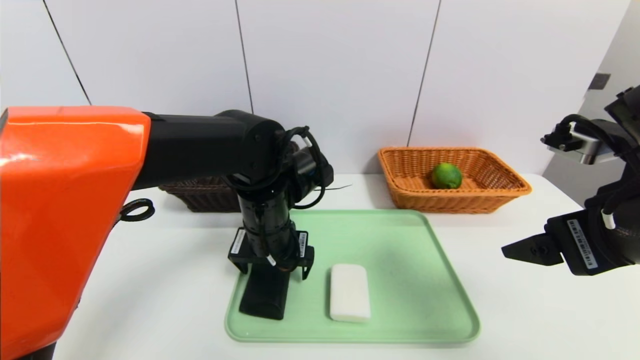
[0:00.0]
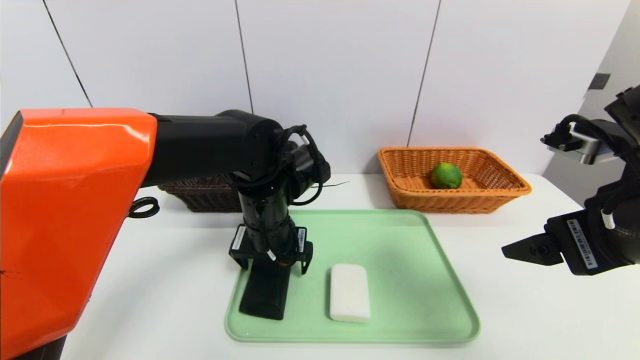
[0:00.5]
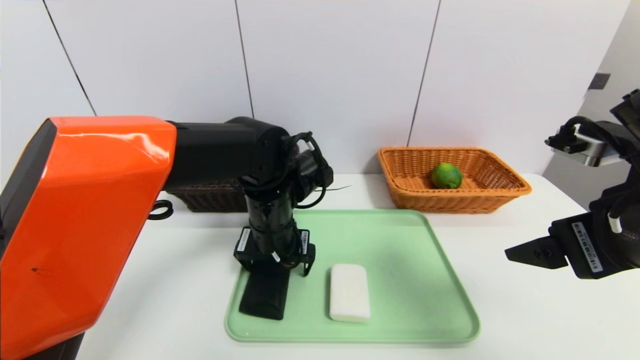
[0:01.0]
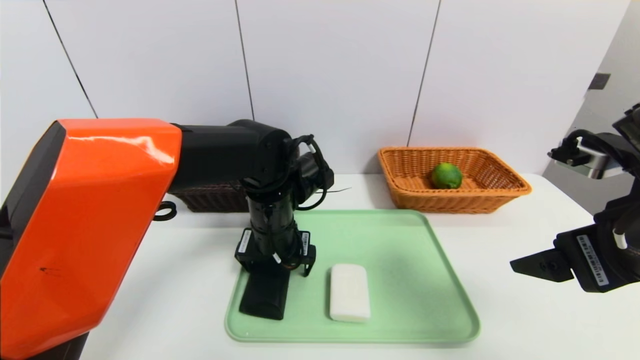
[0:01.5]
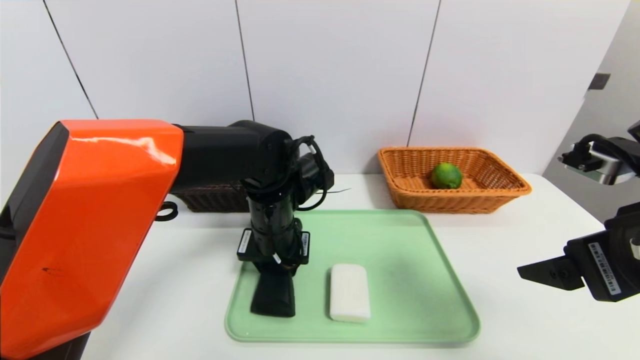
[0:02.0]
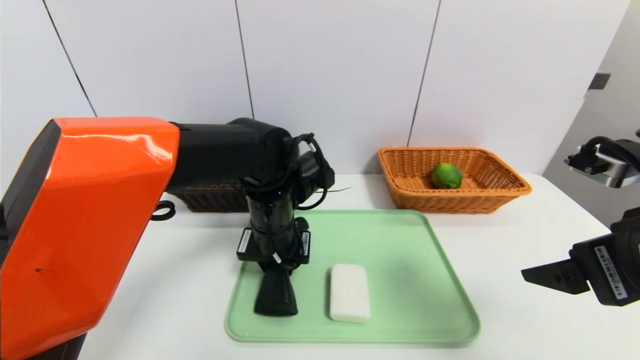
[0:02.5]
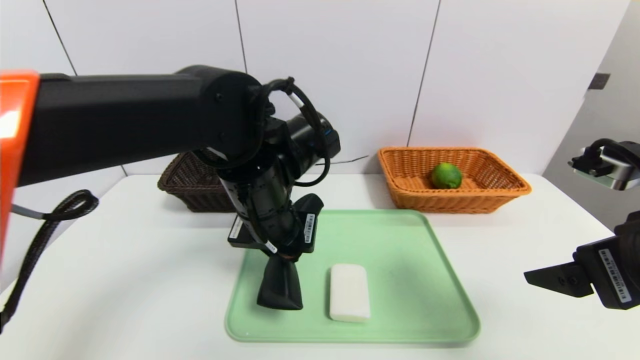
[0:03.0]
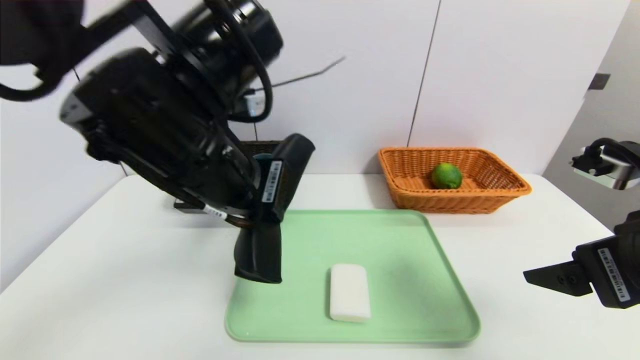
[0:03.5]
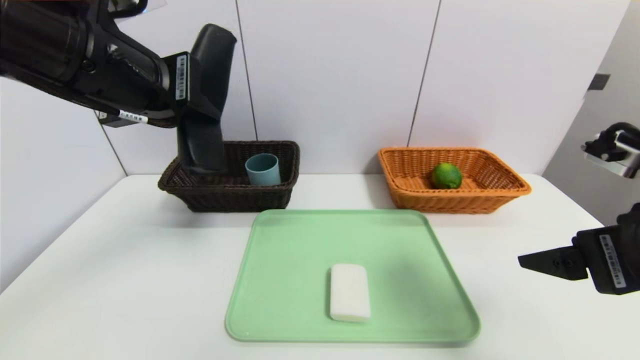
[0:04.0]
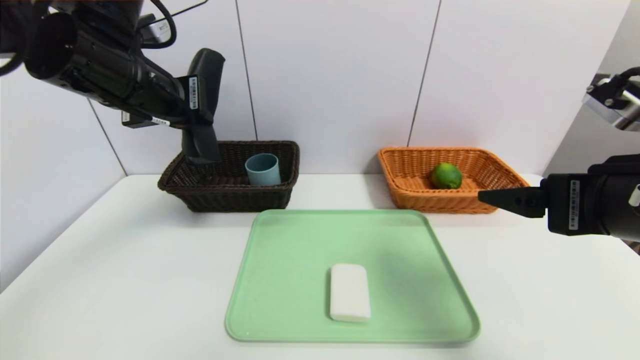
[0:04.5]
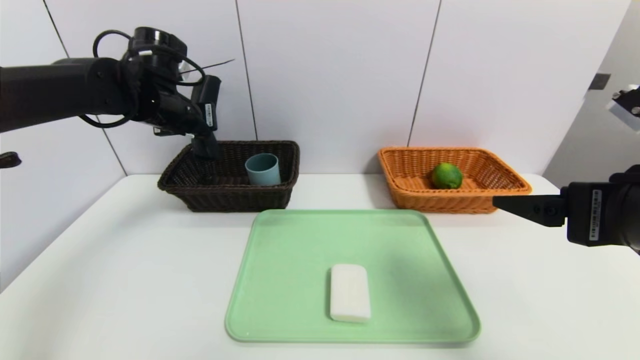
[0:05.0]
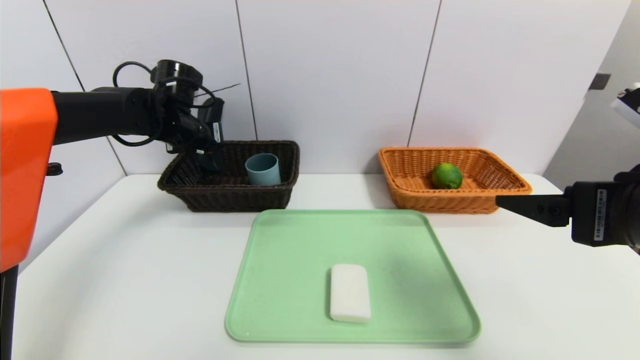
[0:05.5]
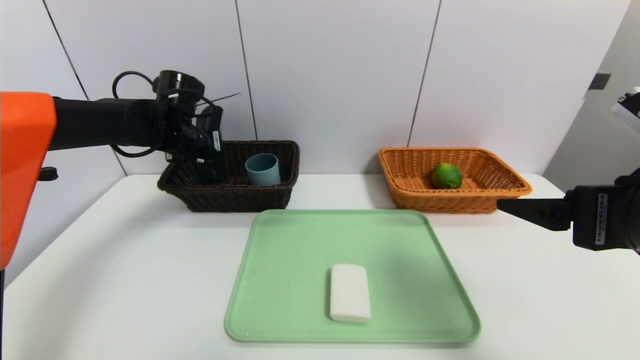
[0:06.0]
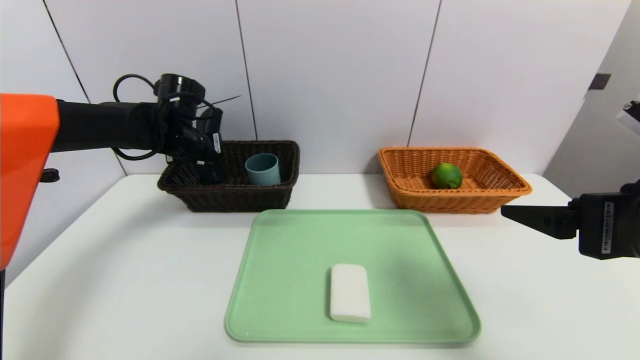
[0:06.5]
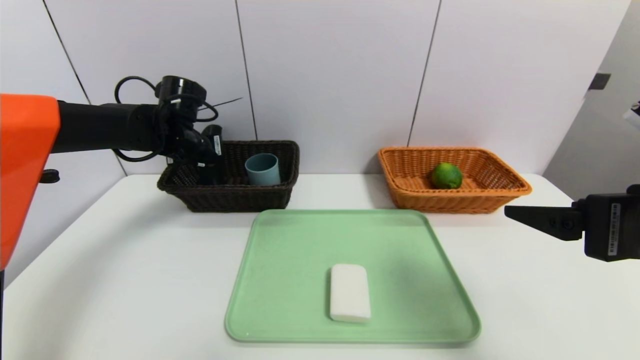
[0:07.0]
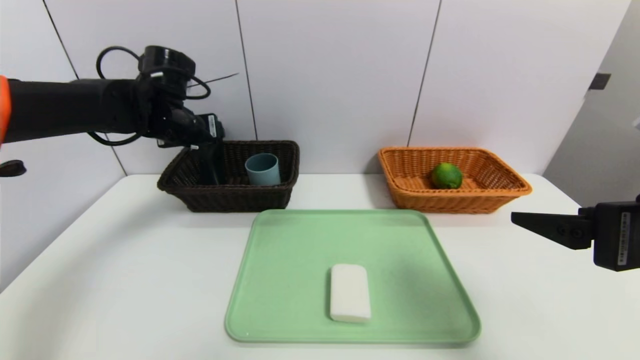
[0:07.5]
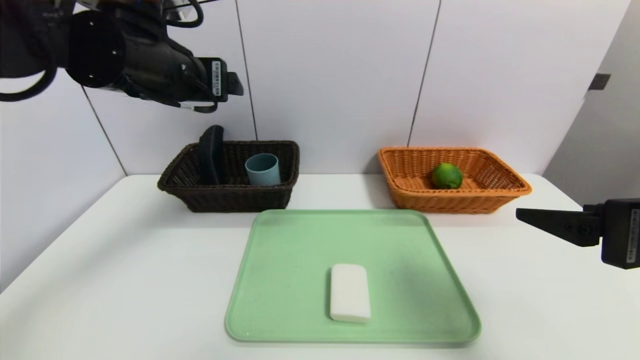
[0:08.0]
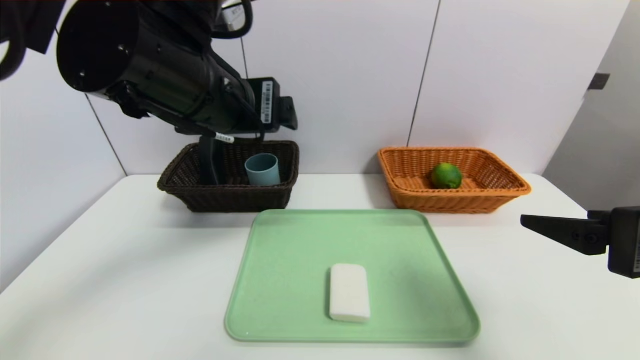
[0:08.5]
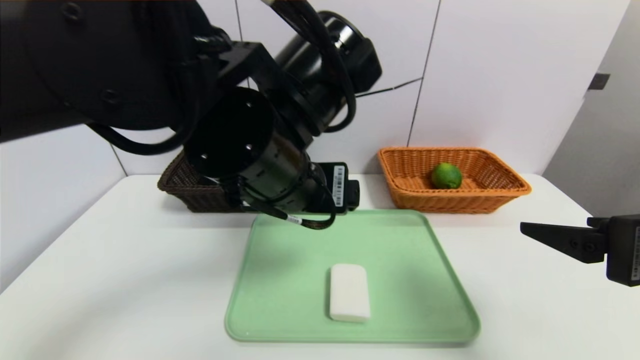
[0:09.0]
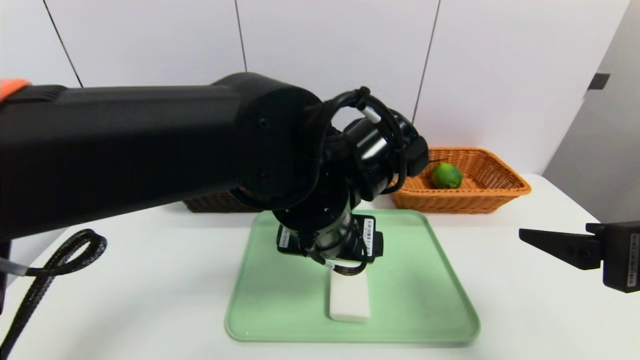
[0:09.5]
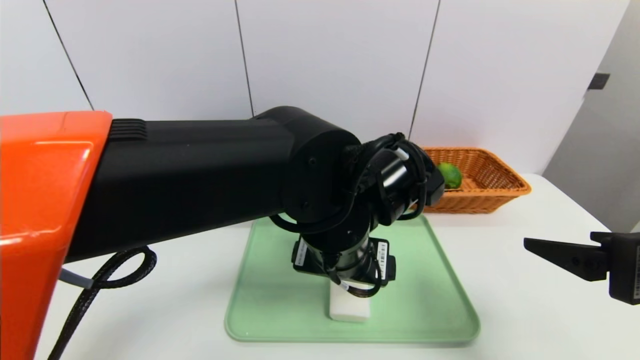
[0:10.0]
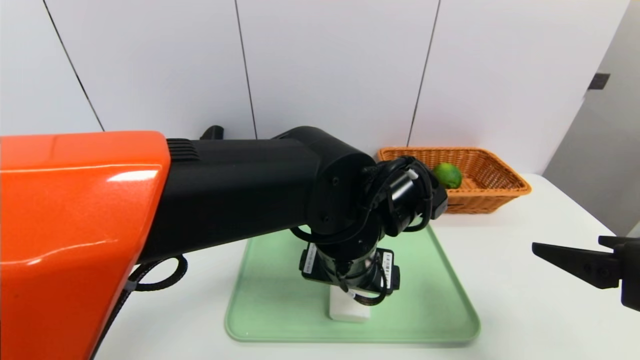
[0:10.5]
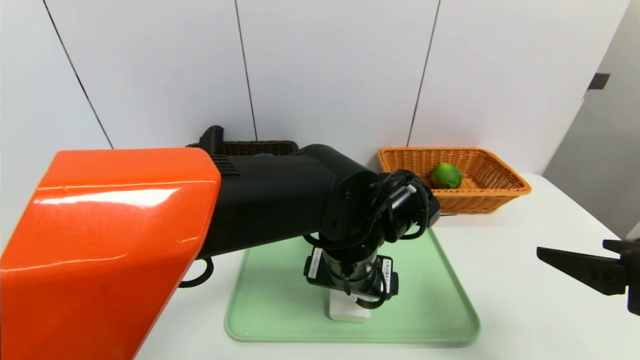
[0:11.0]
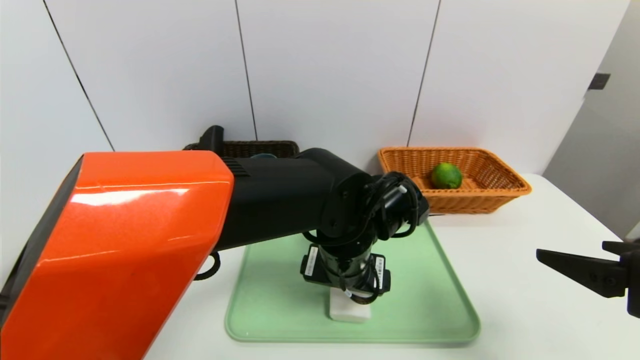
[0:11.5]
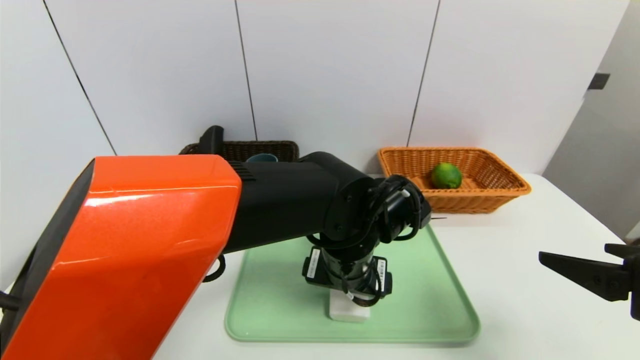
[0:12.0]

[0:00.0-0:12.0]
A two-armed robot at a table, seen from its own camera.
Task of the whole recording: place the food in the right basket with the right gripper, and place the non food items in the left basket with the left gripper.
Step, 0:00.0 to 0:07.5: Grasp the glasses case and put it in the left basket.
0:00.0 to 0:02.0: The left gripper closes its fingers.
0:02.0 to 0:04.0: The left gripper travels upward and to the left by about 25 cm.
0:04.0 to 0:06.0: The left gripper shifts about 25 cm forward and downward.
0:06.0 to 0:08.0: The left gripper goes approximately 20 cm backward, upward and to the right, and opens its fingers.
0:08.0 to 0:10.0: The left gripper travels to the right and downward by some 25 cm.
0:10.0 to 0:12.0: The left gripper shifts about 5 cm downward.

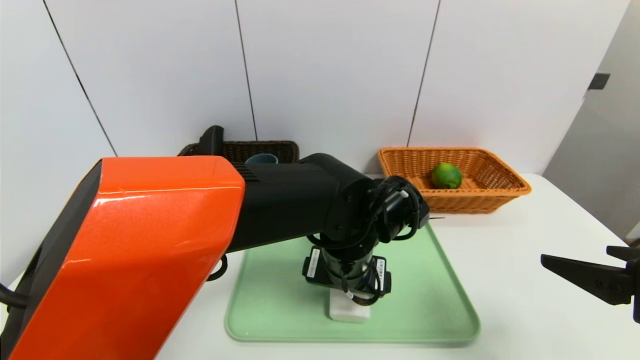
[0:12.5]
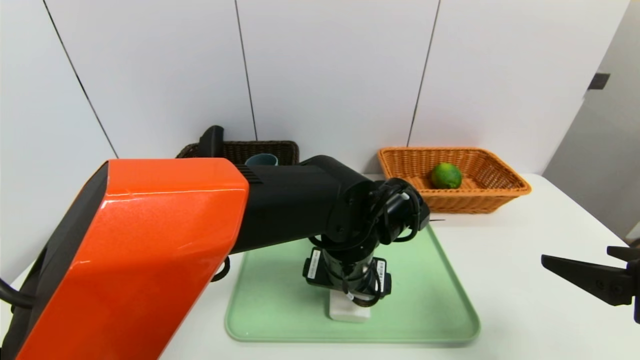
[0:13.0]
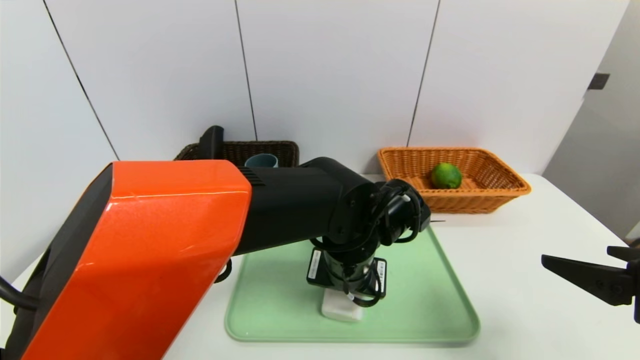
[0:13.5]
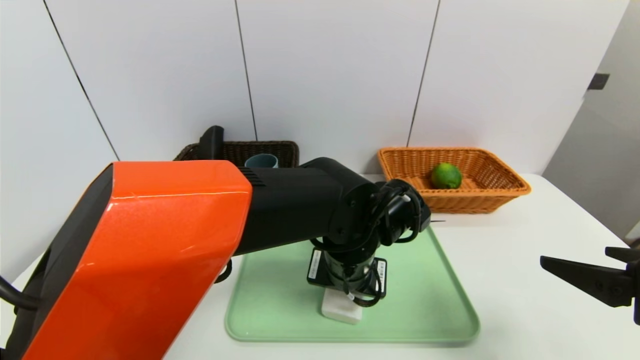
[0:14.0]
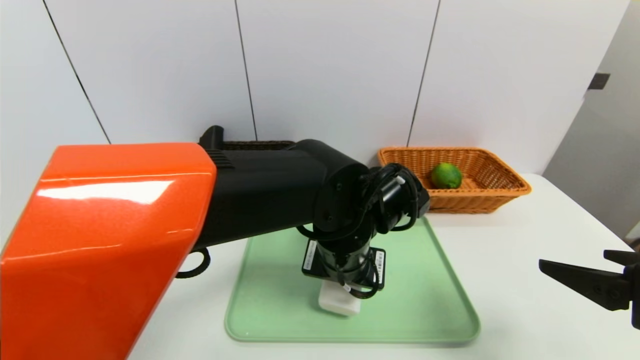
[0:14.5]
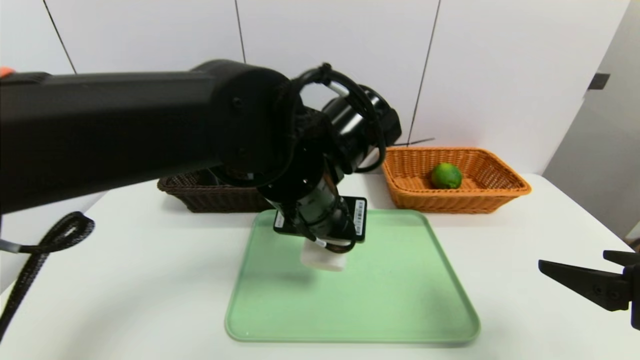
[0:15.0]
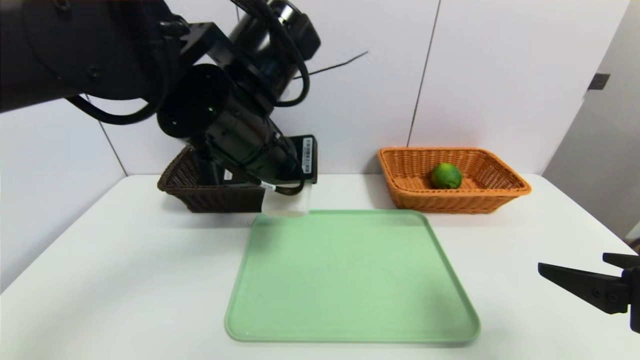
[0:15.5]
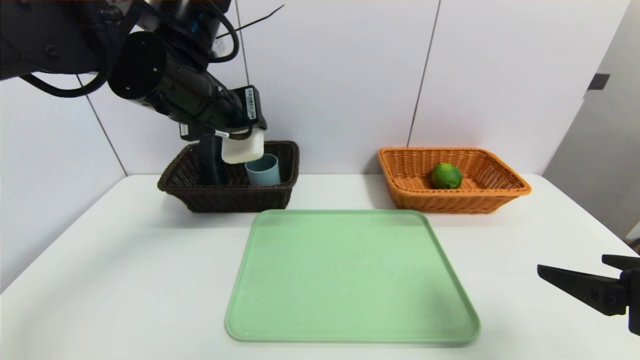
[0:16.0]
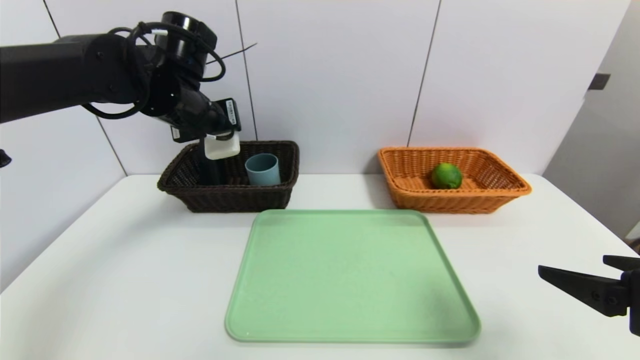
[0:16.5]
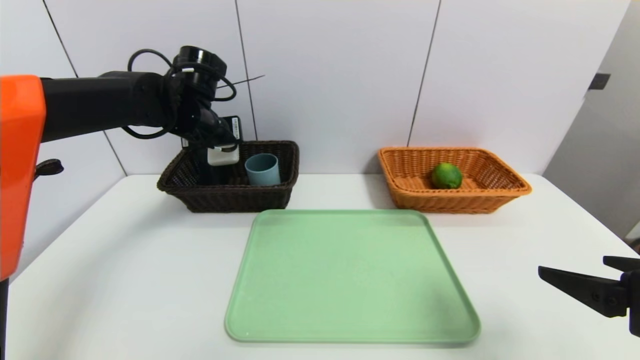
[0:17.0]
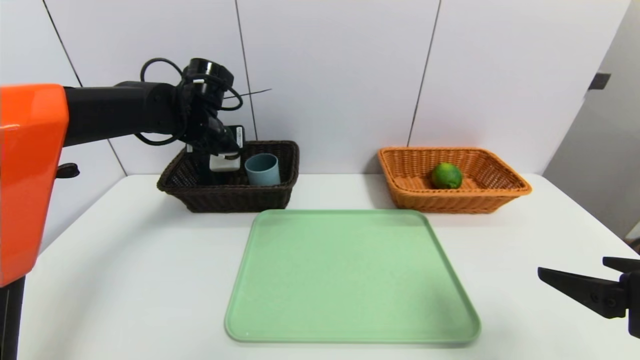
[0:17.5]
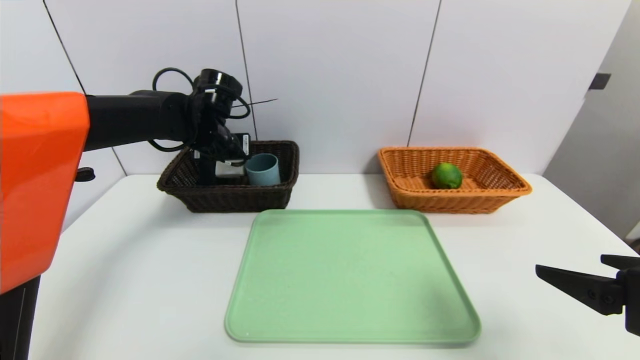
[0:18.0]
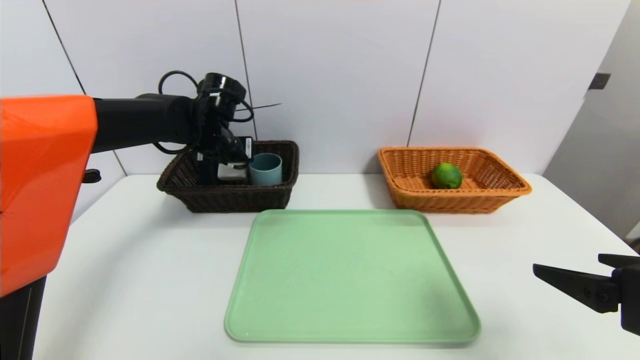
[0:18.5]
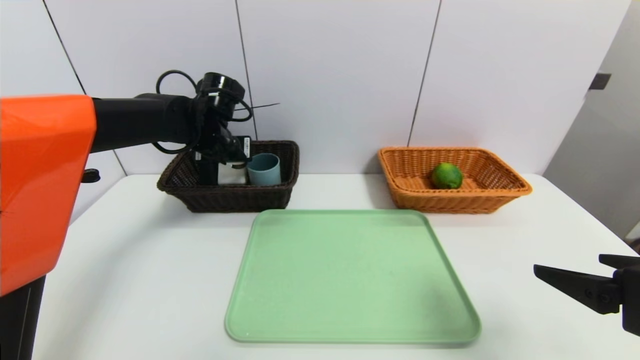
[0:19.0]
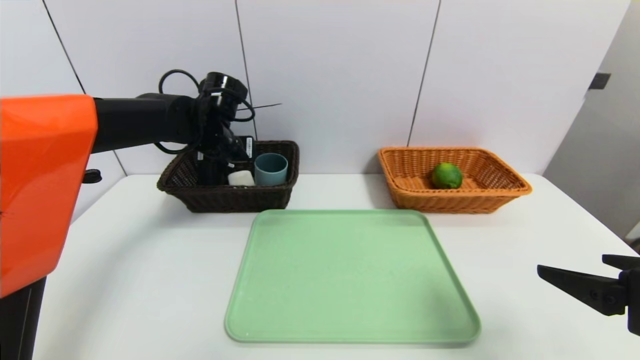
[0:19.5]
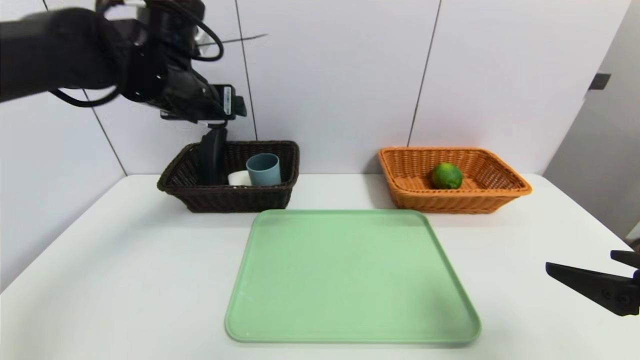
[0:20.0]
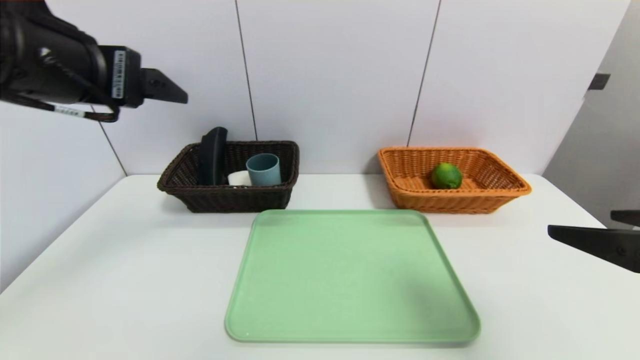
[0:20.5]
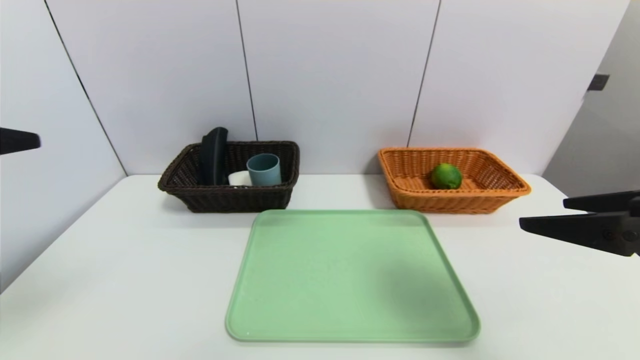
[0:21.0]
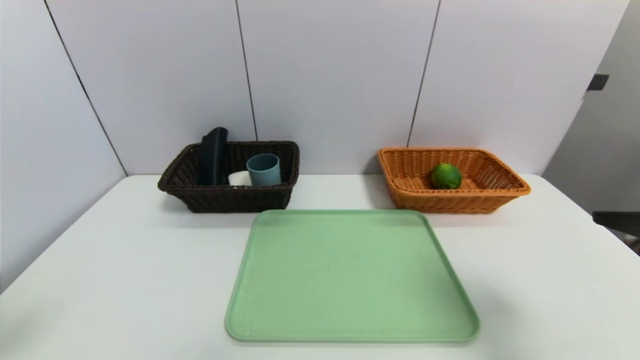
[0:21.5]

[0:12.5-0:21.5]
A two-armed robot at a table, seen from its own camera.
Task of the whole recording: place the food in the right basket with the right gripper, and place the non food items in the left basket with the left gripper.
Step, 0:12.5 to 0:19.5: Grasp the soap and put it in the left basket.
0:12.5 to 0:14.5: The left gripper closes its fingers.
0:14.5 to 0:17.0: The left gripper moves to the left and forward, roughly 25 cm.
0:17.0 to 0:19.5: The left gripper opens up.
0:19.5 to 0:21.5: The right gripper shifts approximately 5 cm upward, while the left gripper is displaced backward by about 40 cm.
